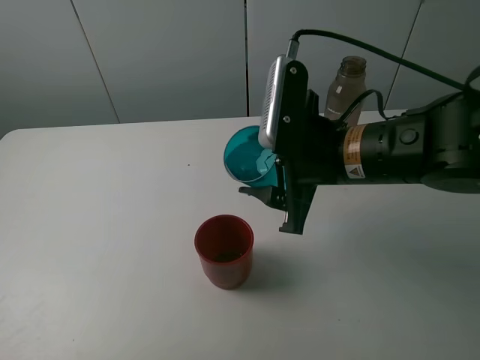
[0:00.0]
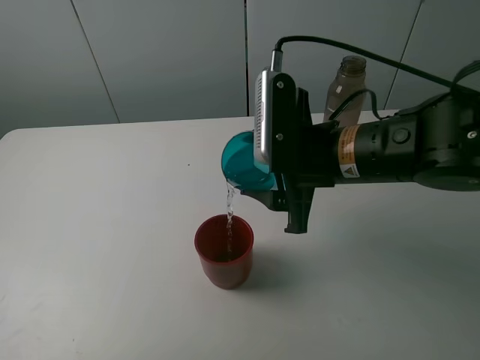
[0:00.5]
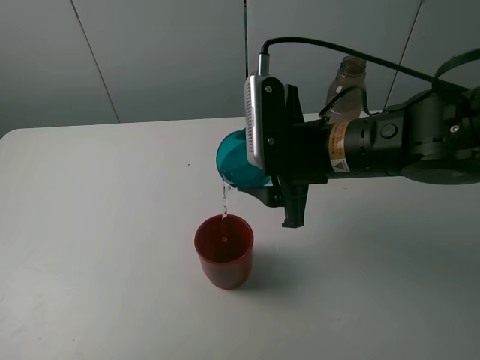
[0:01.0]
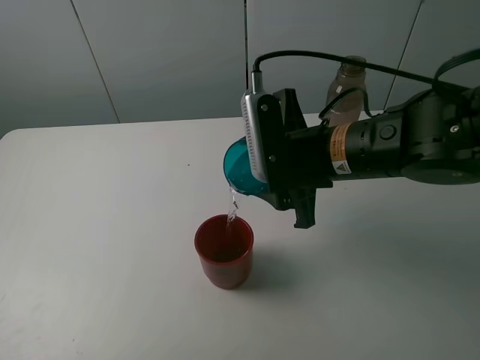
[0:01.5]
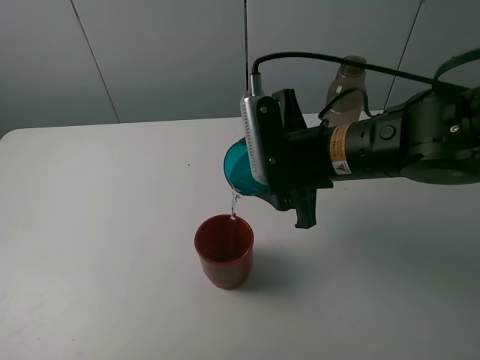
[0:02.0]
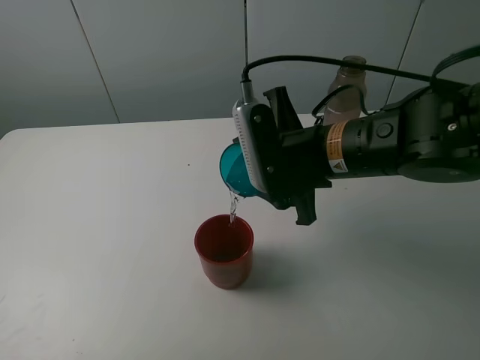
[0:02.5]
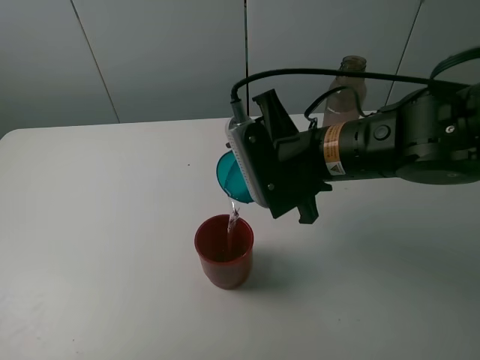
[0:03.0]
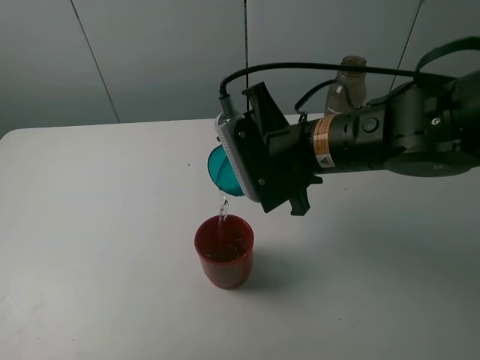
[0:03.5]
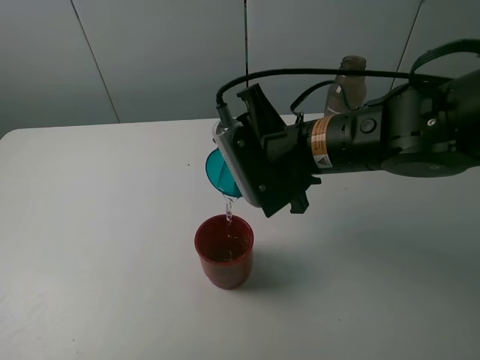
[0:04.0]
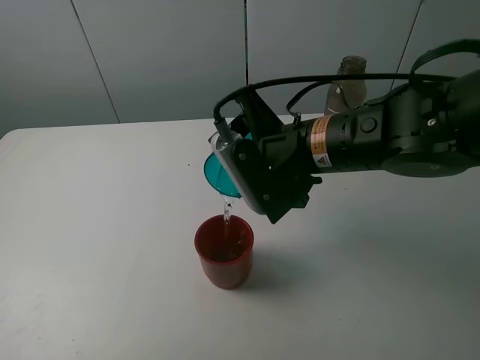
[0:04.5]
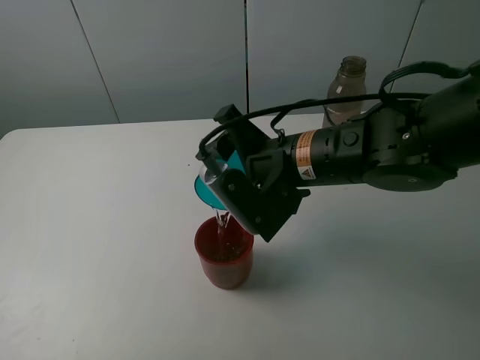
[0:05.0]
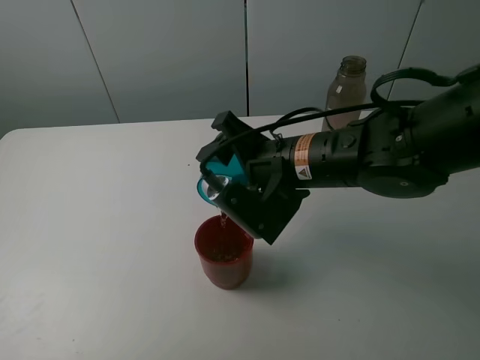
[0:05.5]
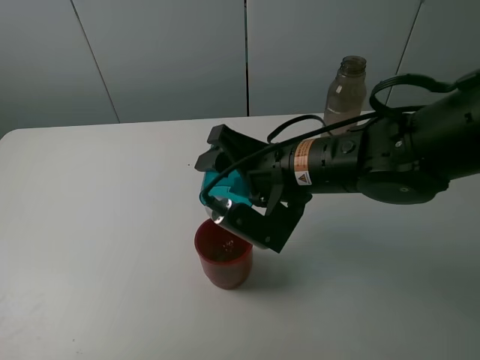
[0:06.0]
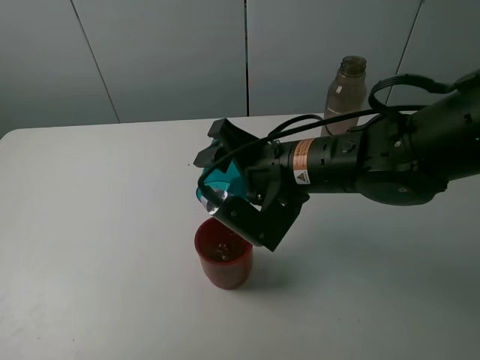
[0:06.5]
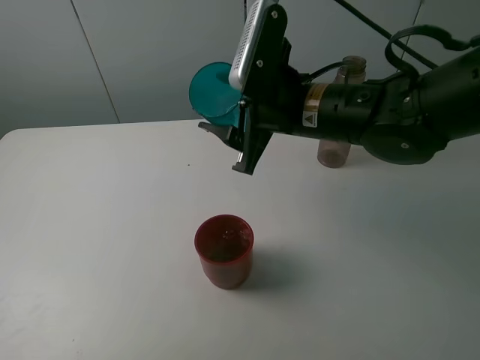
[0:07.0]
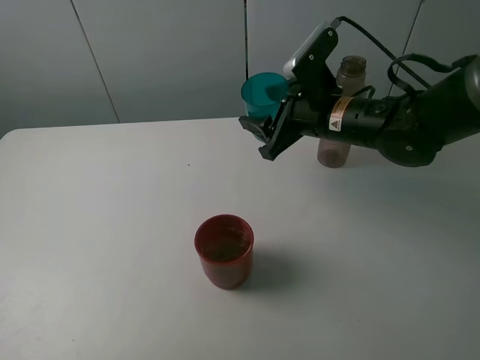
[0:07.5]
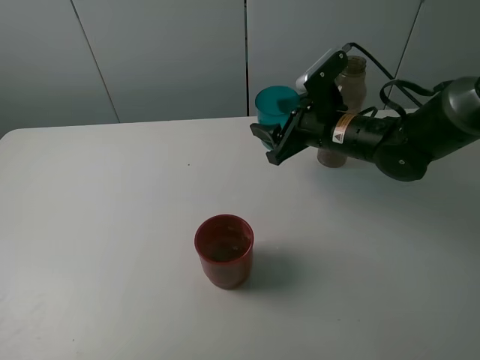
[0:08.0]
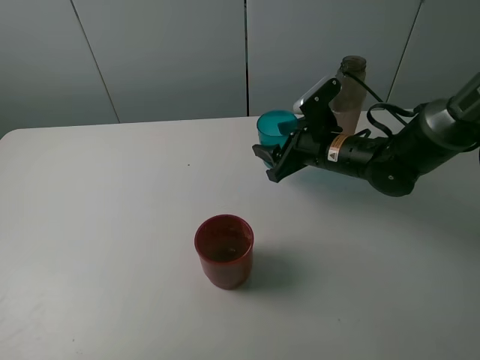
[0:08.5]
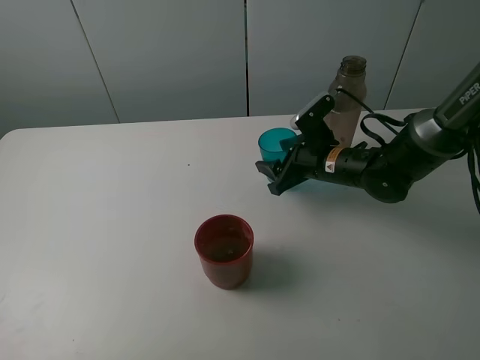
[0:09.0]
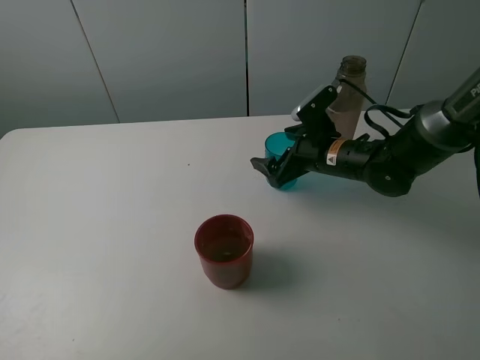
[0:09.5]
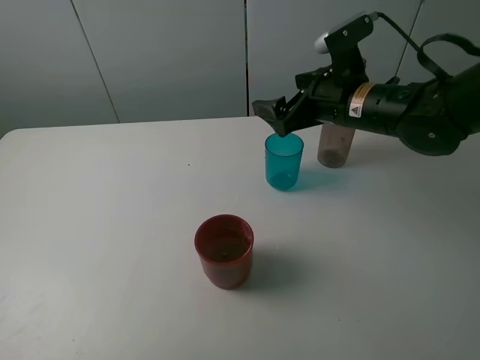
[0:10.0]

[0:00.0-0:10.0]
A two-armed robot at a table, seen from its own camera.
Task of the whole recording: pick up the bottle and pour water into the cup, then pick up the cup containing water and pour it into another cup.
Step, 0:00.0 to 0:06.5: Pour water from blue cup to red cup with the right gripper.
Step, 0:07.0 to 0:09.5: Place the blue cup with the right gripper.
0:06.0 to 0:08.0: The right gripper travels forward and to the right by roughly 15 cm.
0:08.0 to 0:10.0: The right gripper goes roughly 5 cm upward, and opens its fingers.

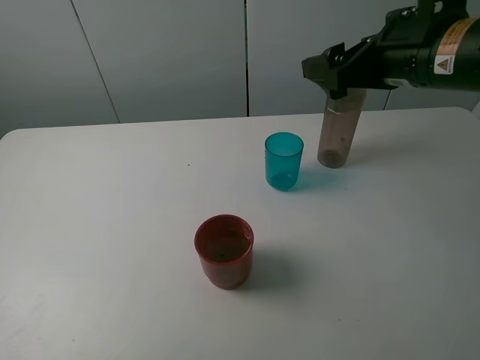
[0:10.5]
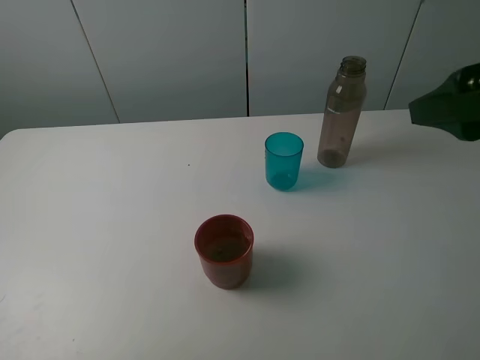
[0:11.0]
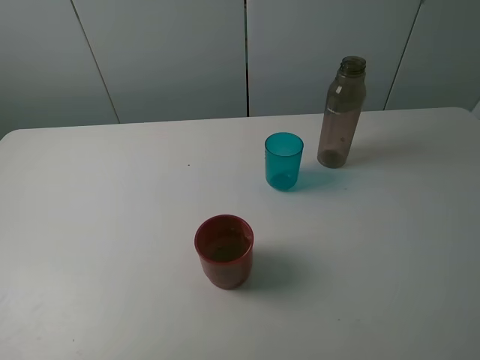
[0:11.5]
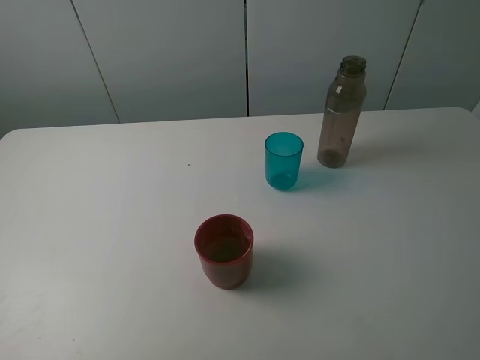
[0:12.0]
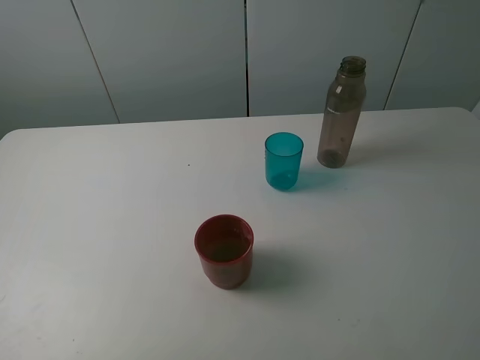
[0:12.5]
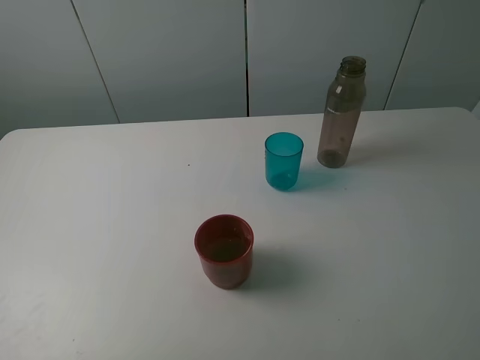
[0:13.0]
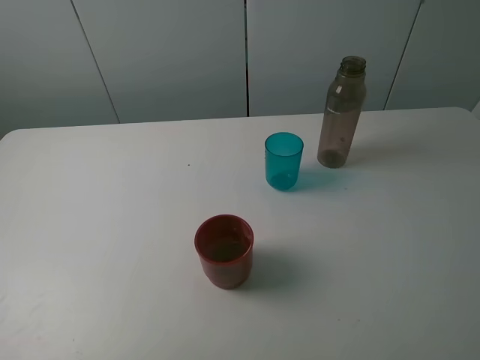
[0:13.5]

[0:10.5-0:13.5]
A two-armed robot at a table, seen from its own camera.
Task of the whole recording: pick up the bottle and pour water into the cup, then pick up the cup containing water and pour it into another cup.
0:10.5 to 0:12.0: The right gripper moves backward, about 25 cm.

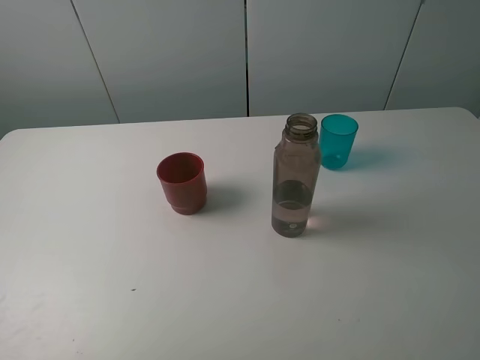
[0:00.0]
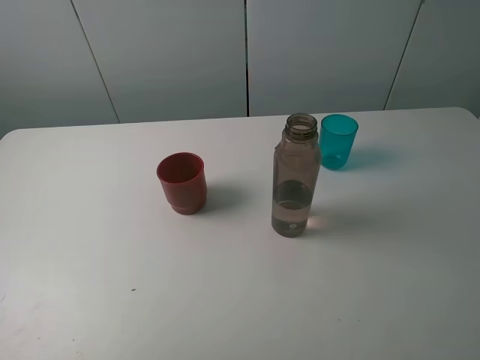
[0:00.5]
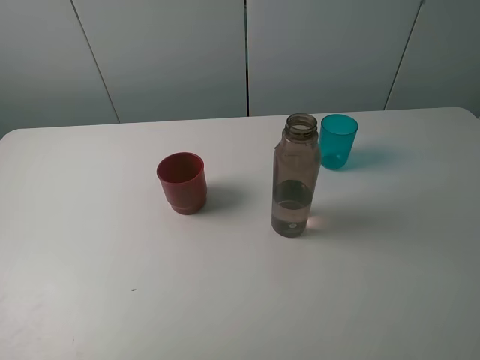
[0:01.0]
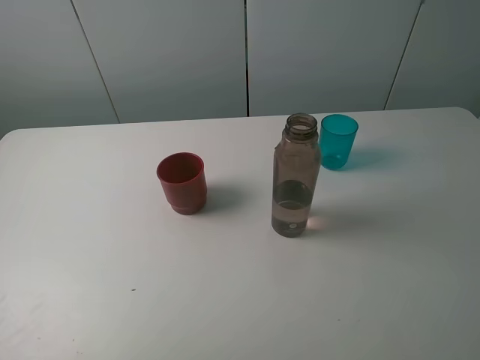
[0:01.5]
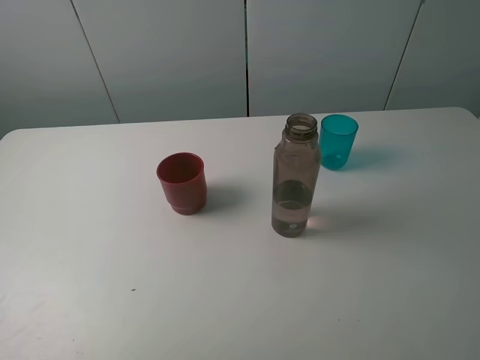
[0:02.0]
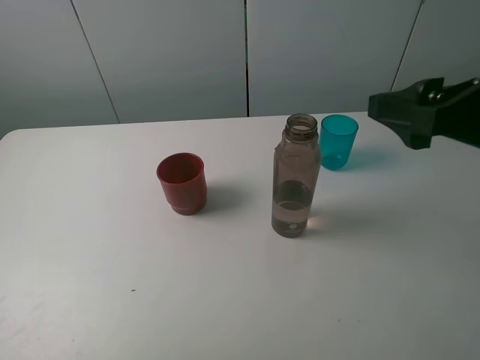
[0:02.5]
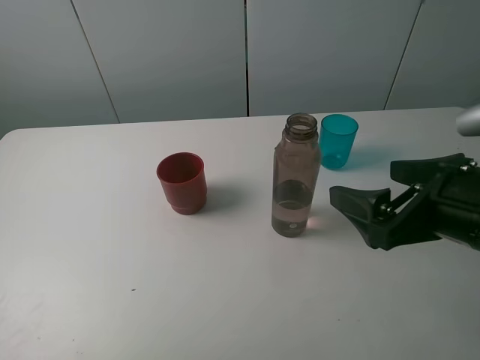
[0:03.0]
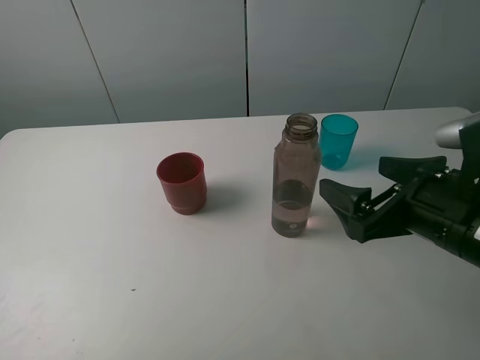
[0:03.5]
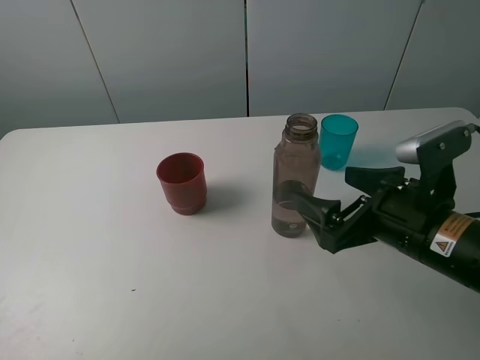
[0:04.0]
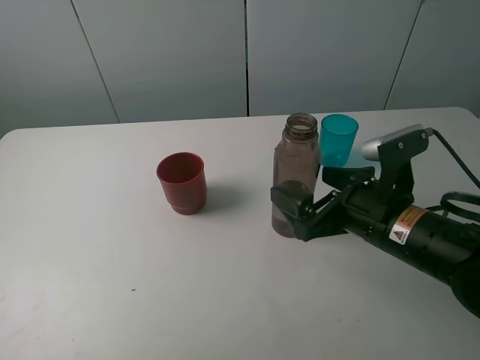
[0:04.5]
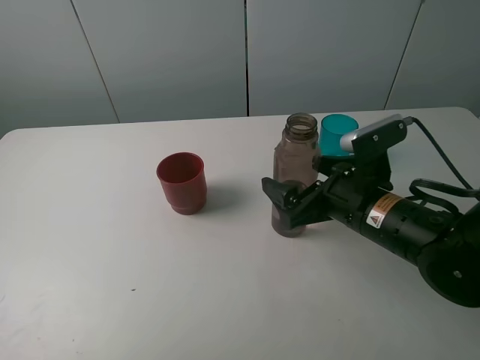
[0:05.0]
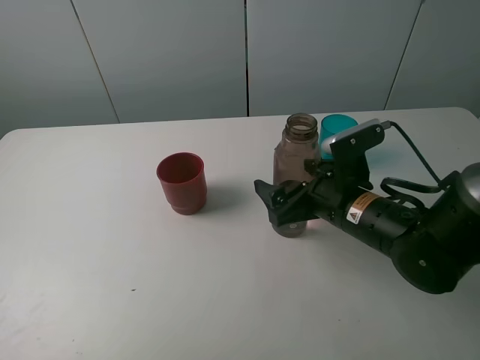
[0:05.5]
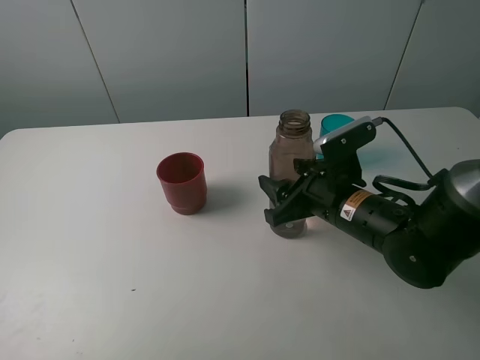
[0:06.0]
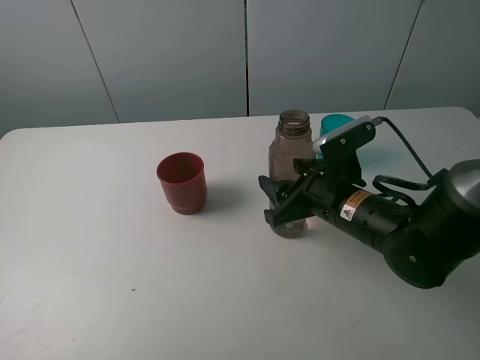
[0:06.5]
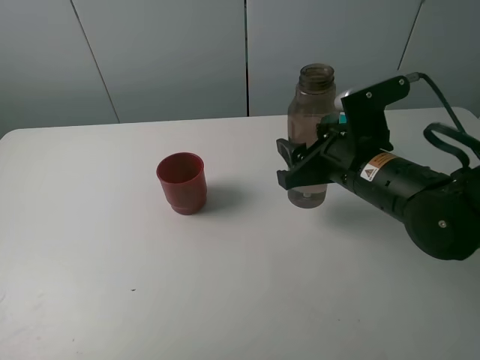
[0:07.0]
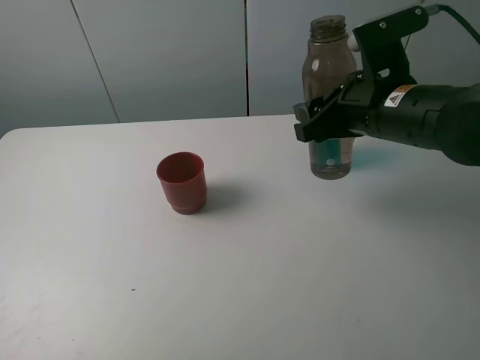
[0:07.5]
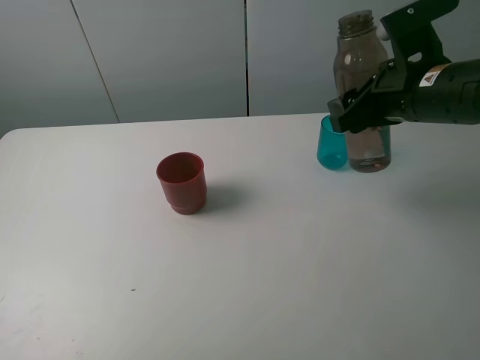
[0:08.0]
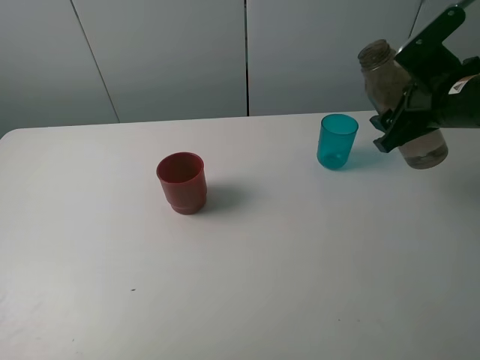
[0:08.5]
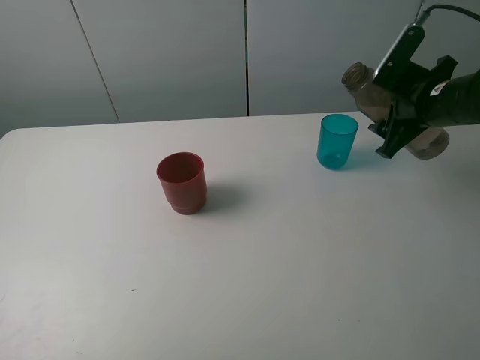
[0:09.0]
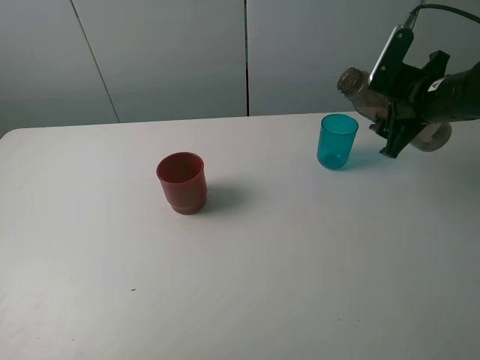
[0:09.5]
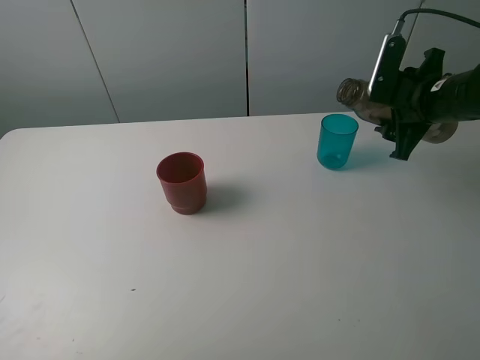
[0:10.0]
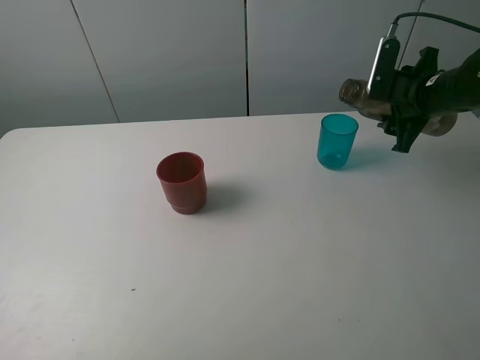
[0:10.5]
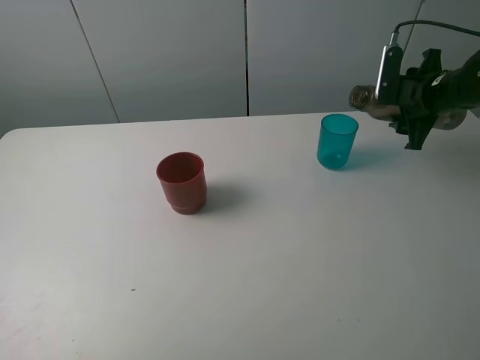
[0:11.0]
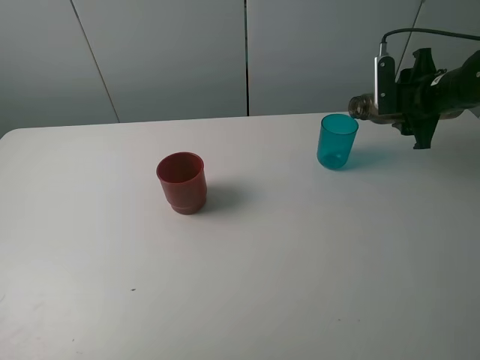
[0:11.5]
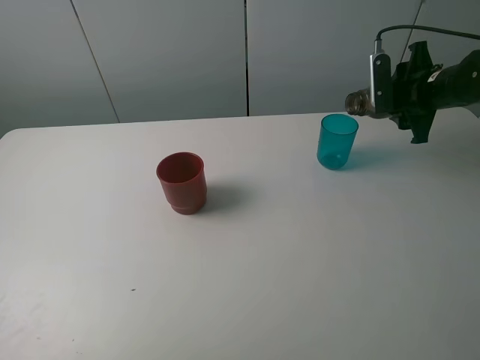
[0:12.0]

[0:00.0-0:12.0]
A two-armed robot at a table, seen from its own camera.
Task of the whole recording: pick up the bottle and pour water into the cup, then pick up the cup containing water and pour it into another cup.
Step, 0:00.0 to 0:06.0: Grasp the brown bottle with the right gripper.
0:02.0 to 0:04.0: The right gripper is displaced downward, forward and to the left by about 20 cm.
0:04.0 to 0:06.0: The right gripper moves forward, approximately 5 cm, and closes its fingers.
0:06.0 to 0:08.0: The right gripper shifts about 15 cm upward and to the right.
0:08.0 to 0:10.0: The right gripper travels to the right and forward by about 10 cm.
0:10.0 to 0:12.0: The right gripper shifts about 5 cm forward.
